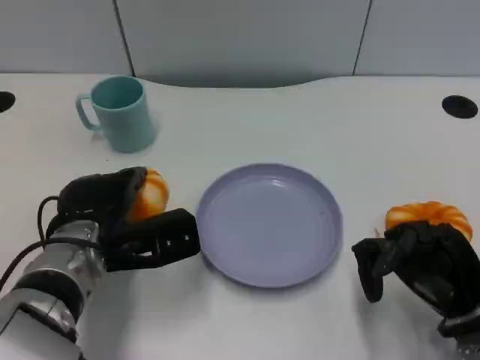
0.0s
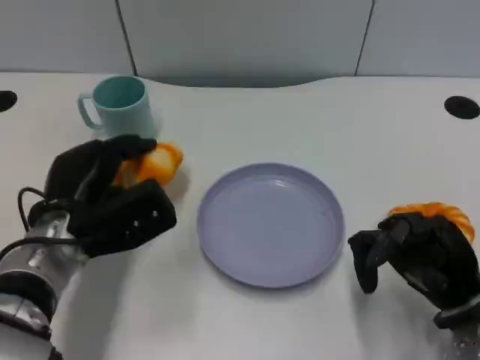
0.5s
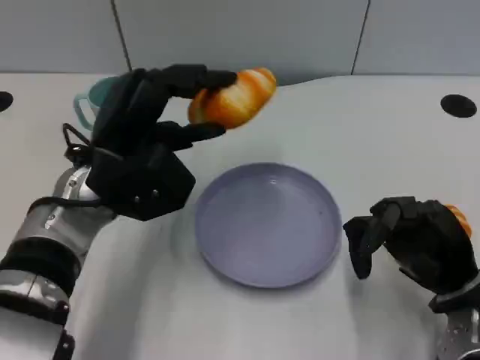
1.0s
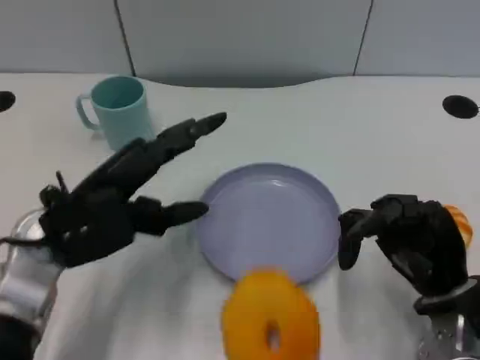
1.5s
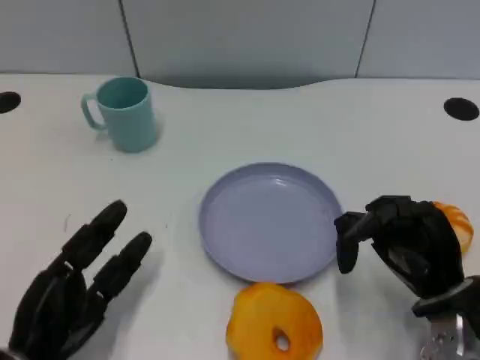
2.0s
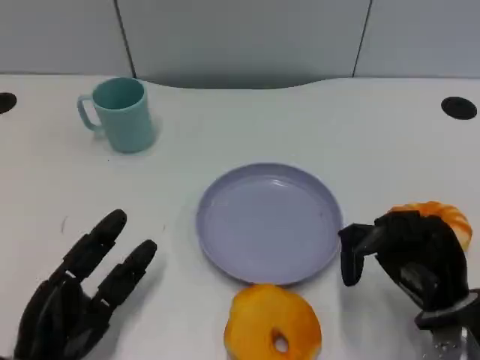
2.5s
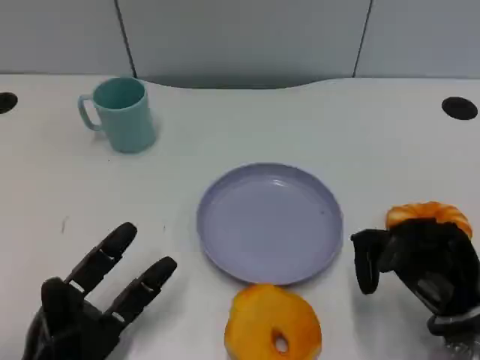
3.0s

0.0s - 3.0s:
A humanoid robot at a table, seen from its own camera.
Task of the whole recording: Grasp the bread from the table and place it into the plate.
0.0s - 1.5s: The left hand heads upward, covering some 5 cm.
1.5s - 3.0s: The left hand moves downward and backward, roughly 15 cm.

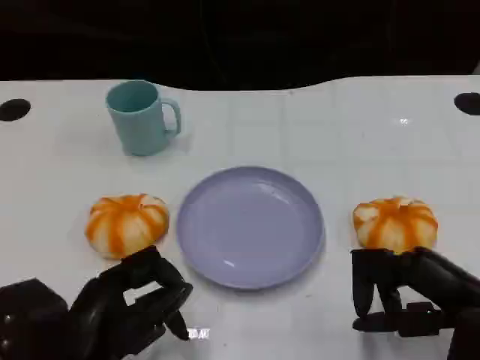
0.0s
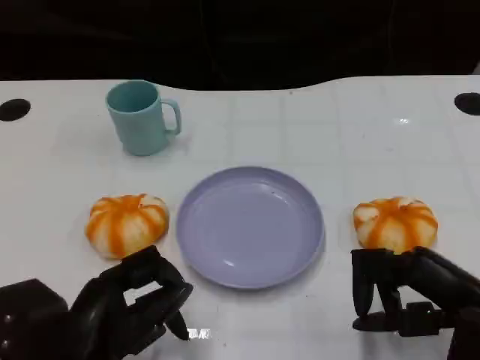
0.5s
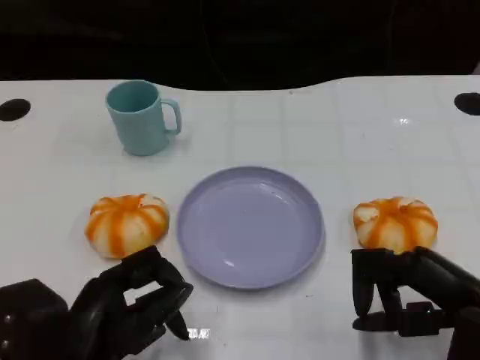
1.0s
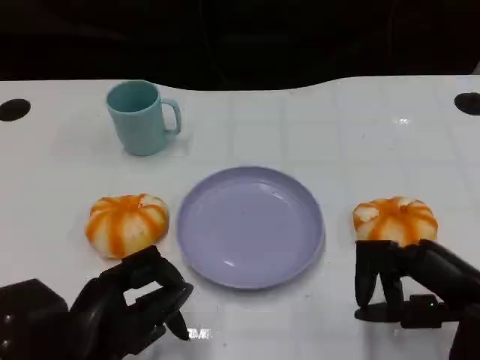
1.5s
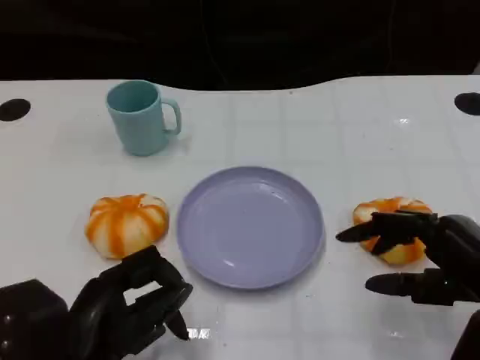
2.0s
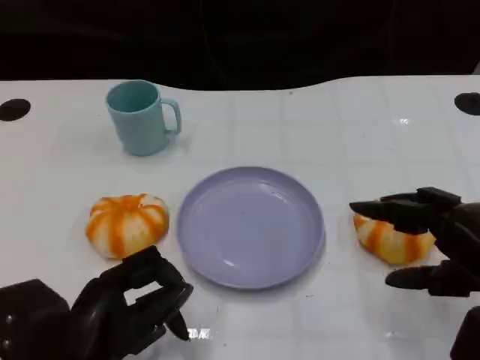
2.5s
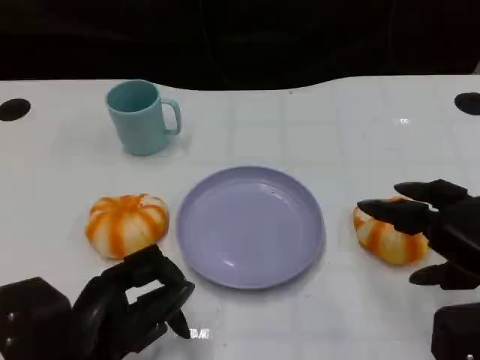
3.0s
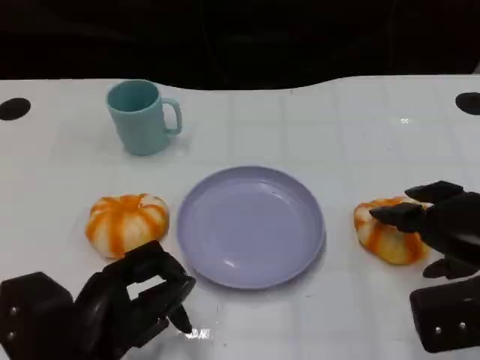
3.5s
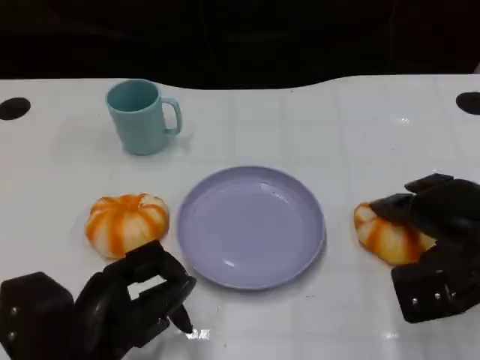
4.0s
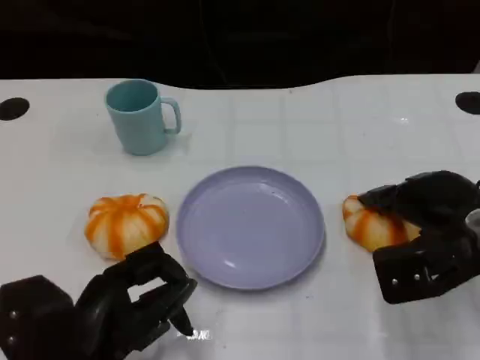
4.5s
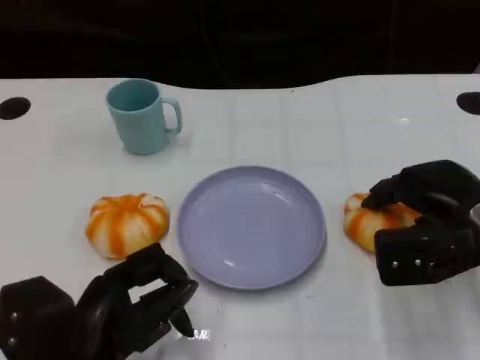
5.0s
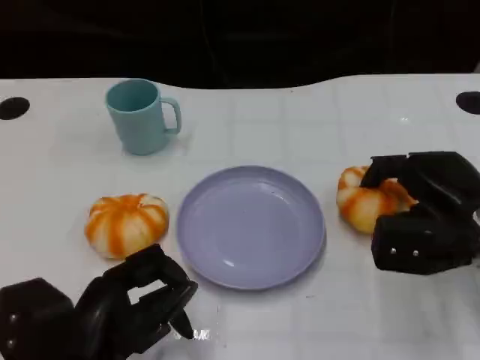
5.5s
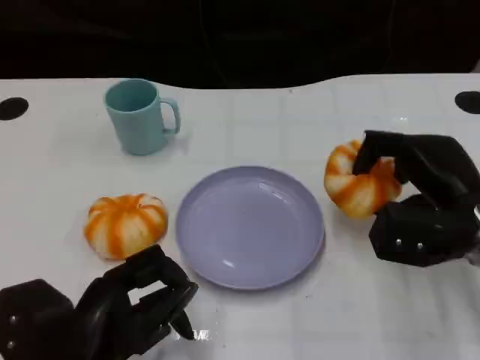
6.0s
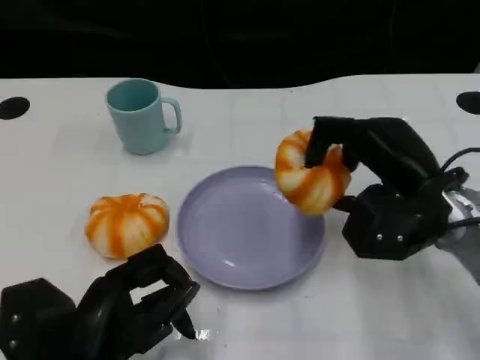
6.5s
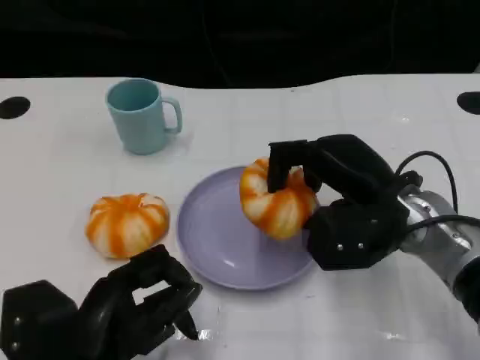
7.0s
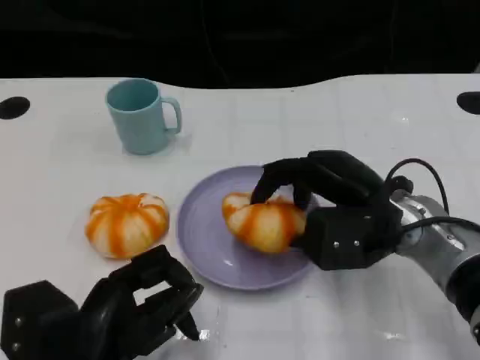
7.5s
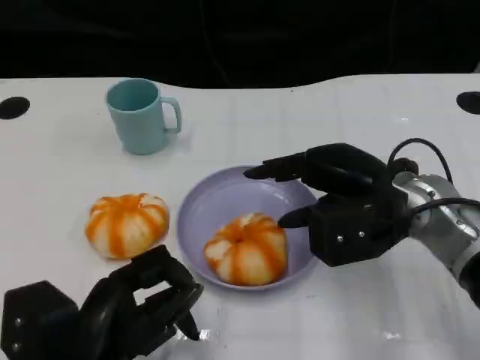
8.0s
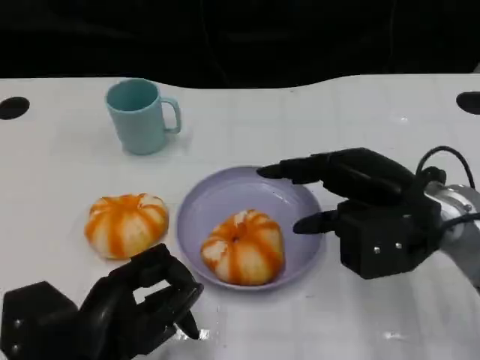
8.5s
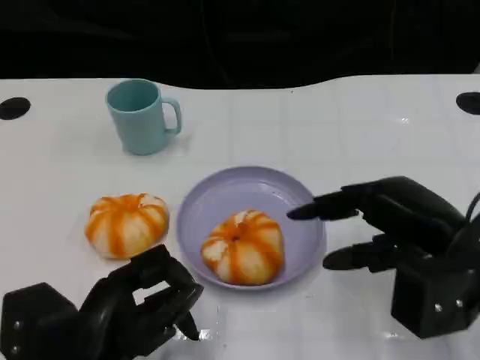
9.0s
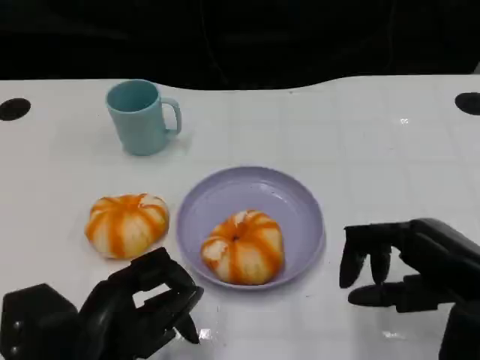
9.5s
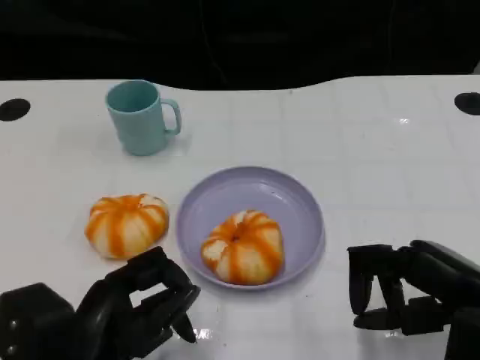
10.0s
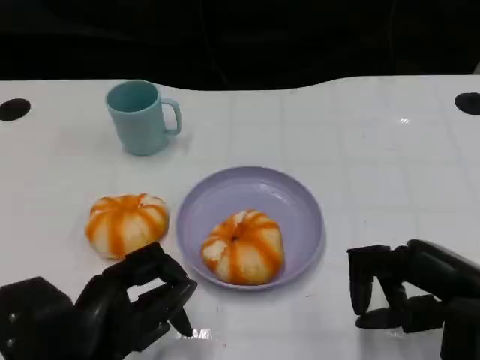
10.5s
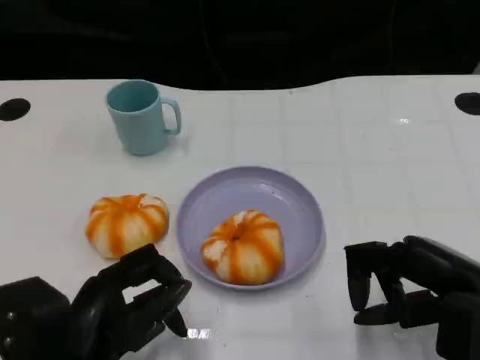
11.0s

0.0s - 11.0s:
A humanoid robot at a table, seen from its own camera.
Task of the whole recording: Grasp the bread from the table and place it into the plate.
0.0s - 2.0s: The hands make only small movements.
2.0s - 3.5s: The right hand moves approximately 5 cm.
3.5s - 5.5s: The right hand moves forward, some 5 cm.
5.5s - 7.5s: The right hand goes some 10 cm to the left.
7.5s - 9.0s: The right hand moves to the right and backward, some 10 cm.
9.0s - 11.0s: The hands make only small movements.

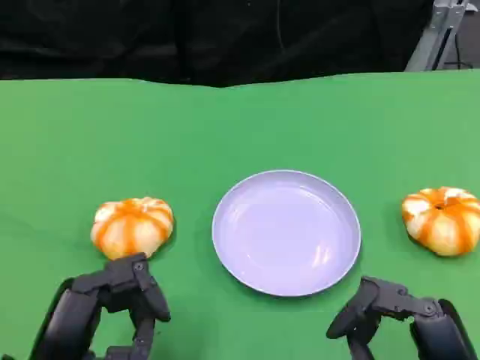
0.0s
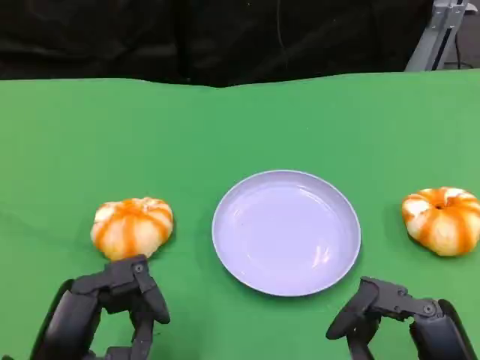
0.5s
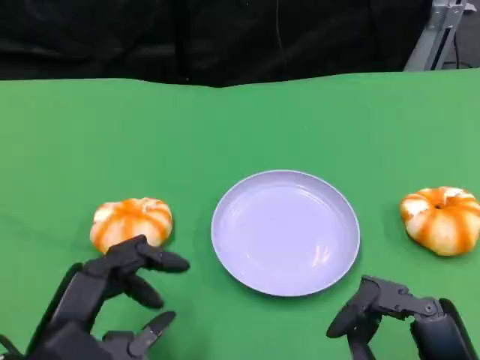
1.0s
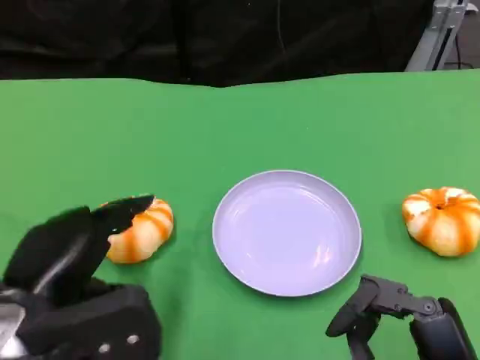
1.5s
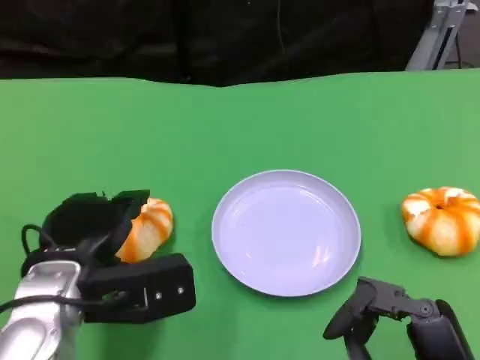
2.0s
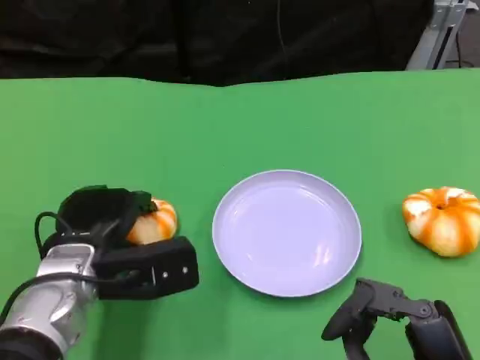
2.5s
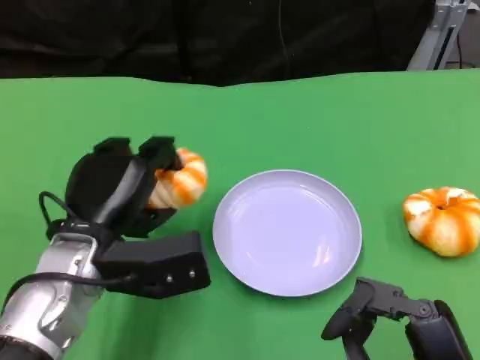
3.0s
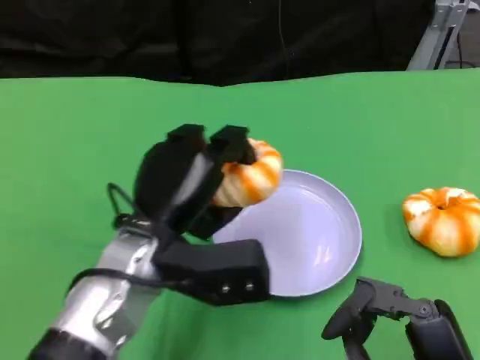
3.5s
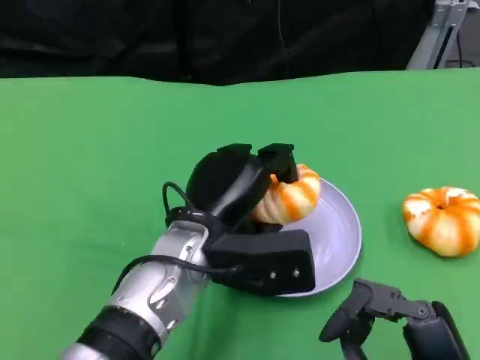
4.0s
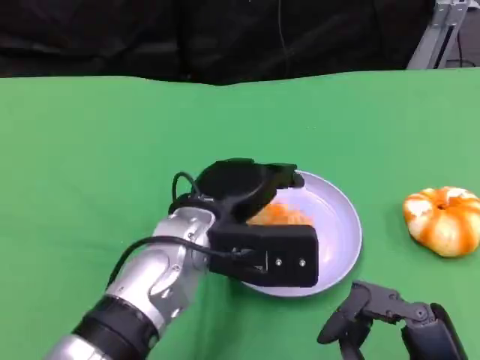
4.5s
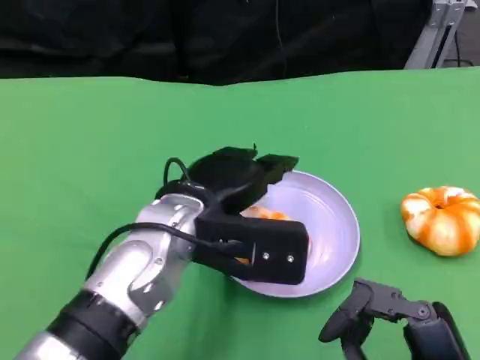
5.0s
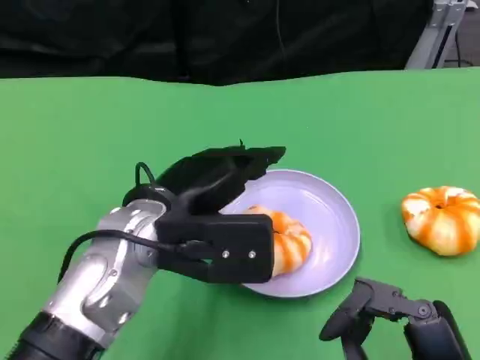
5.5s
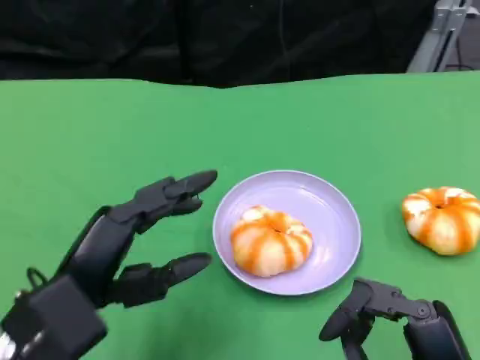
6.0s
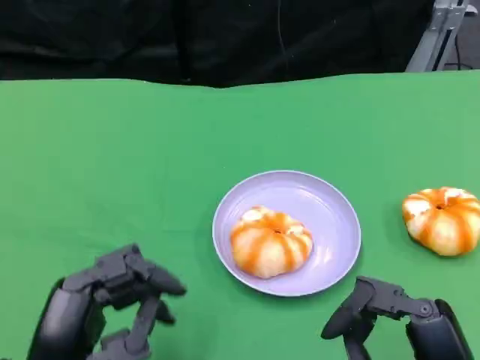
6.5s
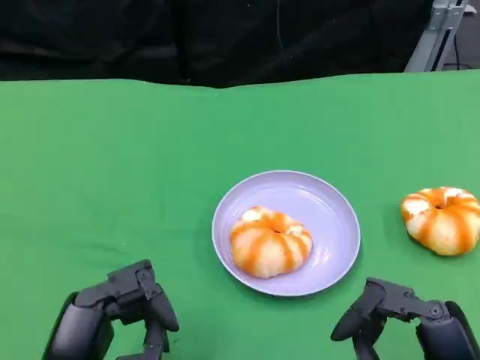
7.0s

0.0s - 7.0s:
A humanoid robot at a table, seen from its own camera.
Task of the whole recording: Grasp the bread from the table and place it into the plate.
0.0s - 2.0s: The left hand is displaced forward by about 10 cm.
2.0s - 3.5s: The left hand goes roughly 10 cm to the right.
5.0s - 7.0s: The left hand travels backward, to the left and downward by roughly 20 cm.

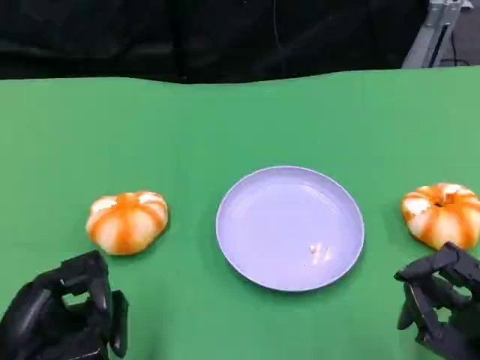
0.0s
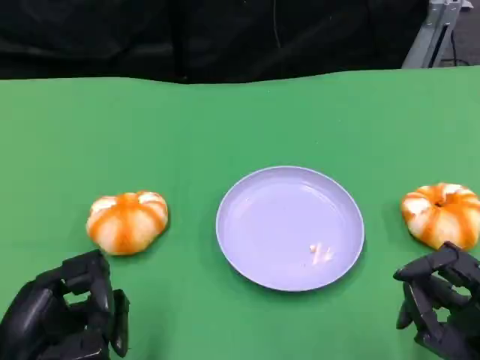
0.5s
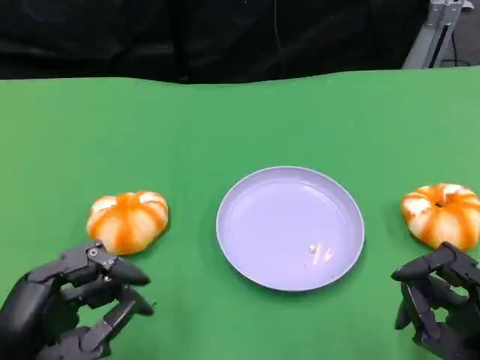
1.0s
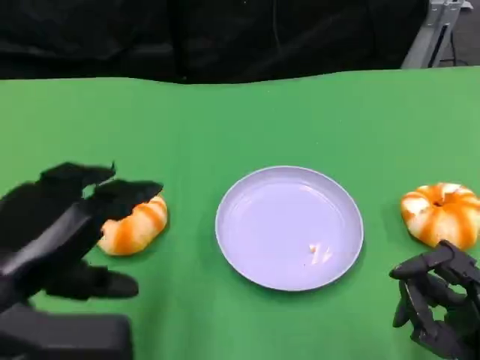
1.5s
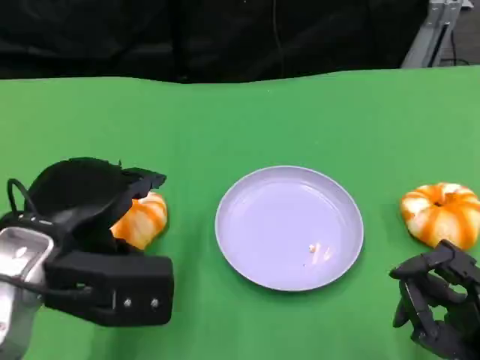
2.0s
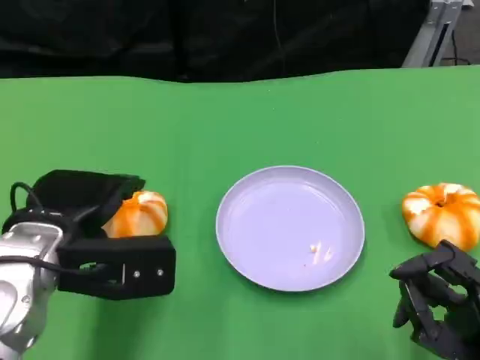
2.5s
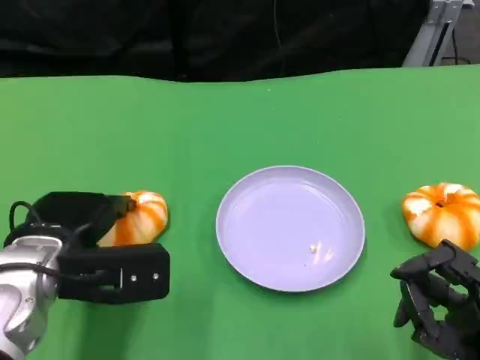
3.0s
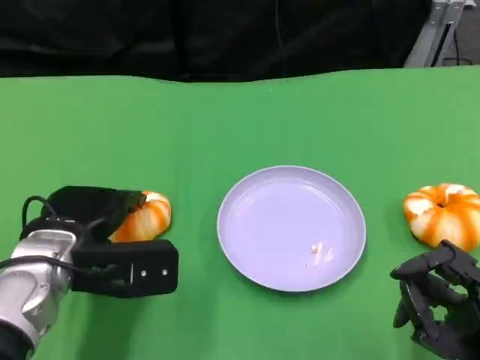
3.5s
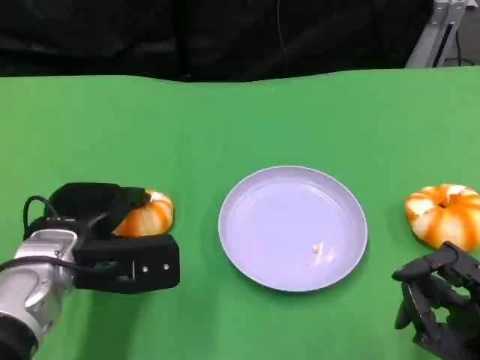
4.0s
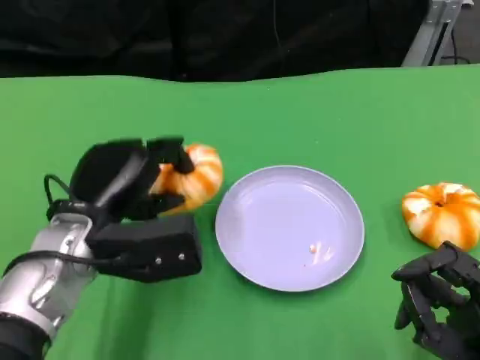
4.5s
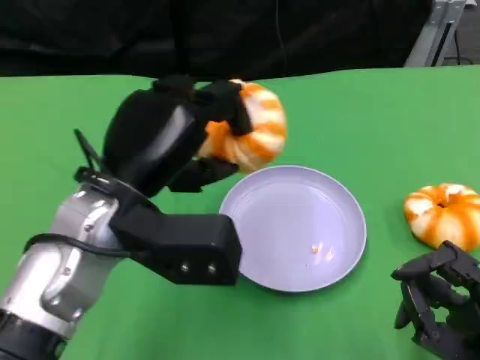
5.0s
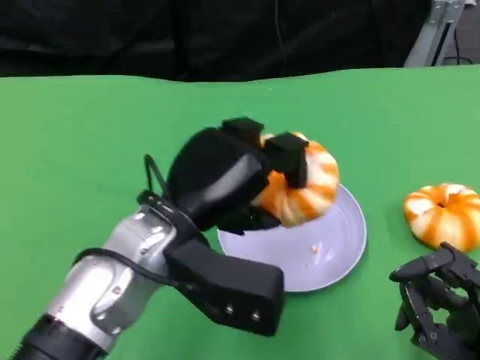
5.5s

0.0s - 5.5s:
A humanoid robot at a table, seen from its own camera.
Task of the whole recording: Grasp the bread from the table and place it into the plate.
0.0s - 2.0s: The left hand shifts roughly 10 cm upward and forward.
2.0s - 3.5s: The left hand moves downward, roughly 5 cm.
3.5s - 5.5s: The left hand travels to the right and upward by some 10 cm.
